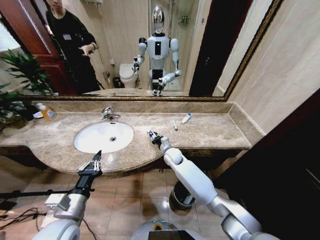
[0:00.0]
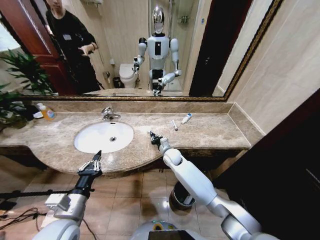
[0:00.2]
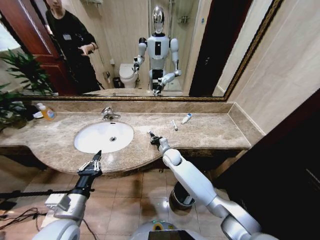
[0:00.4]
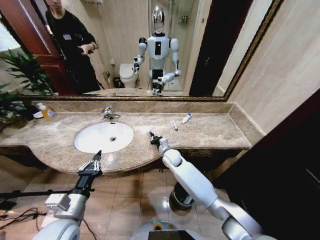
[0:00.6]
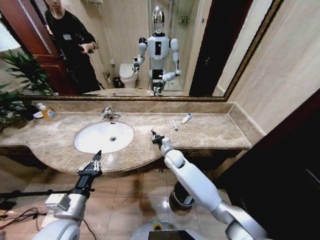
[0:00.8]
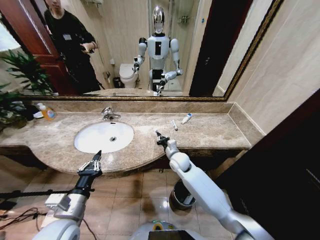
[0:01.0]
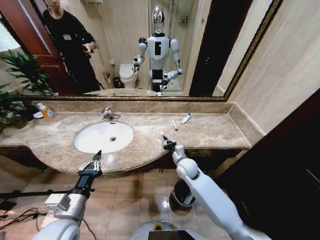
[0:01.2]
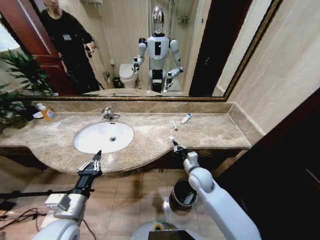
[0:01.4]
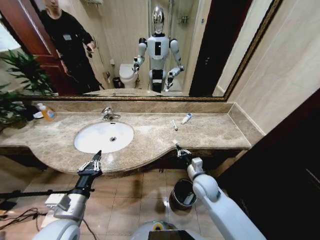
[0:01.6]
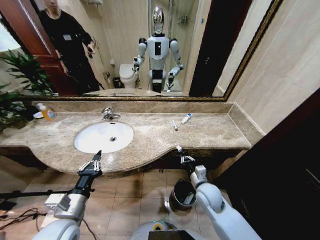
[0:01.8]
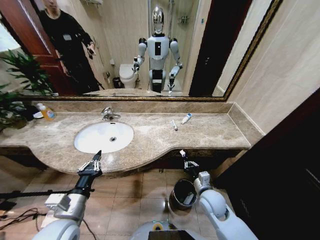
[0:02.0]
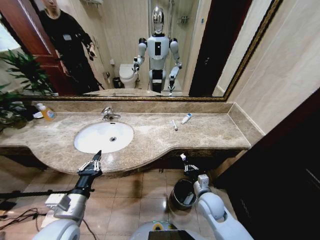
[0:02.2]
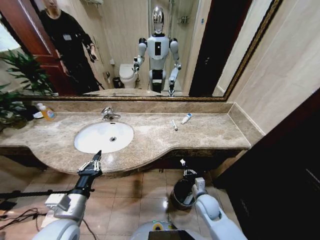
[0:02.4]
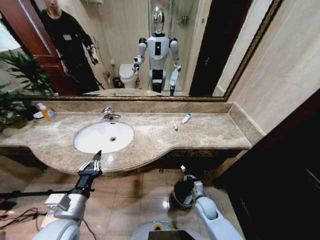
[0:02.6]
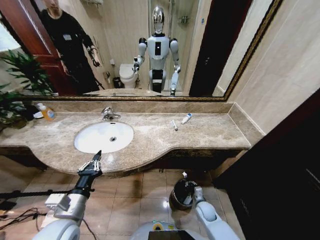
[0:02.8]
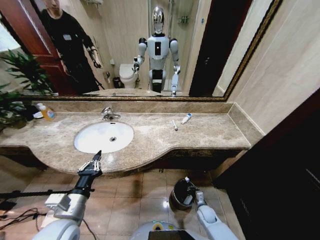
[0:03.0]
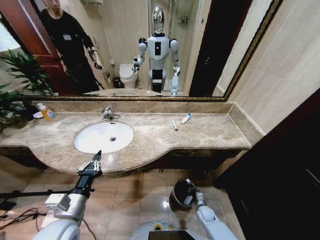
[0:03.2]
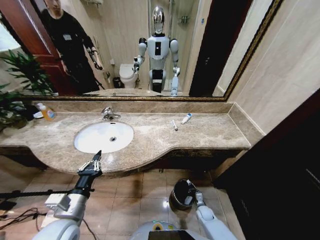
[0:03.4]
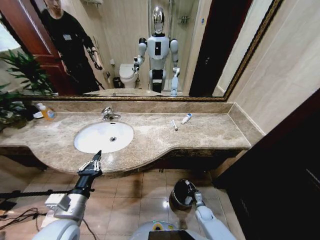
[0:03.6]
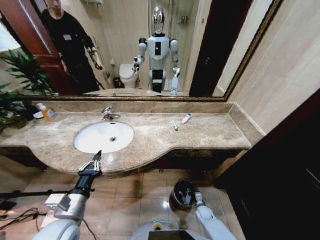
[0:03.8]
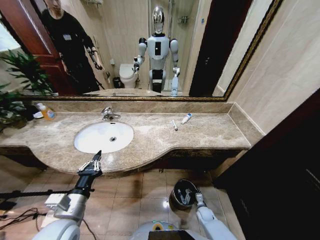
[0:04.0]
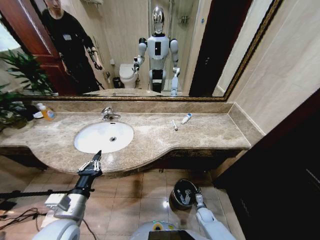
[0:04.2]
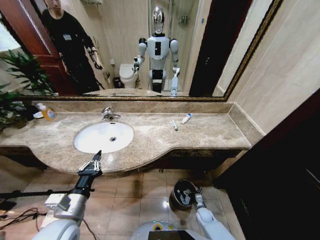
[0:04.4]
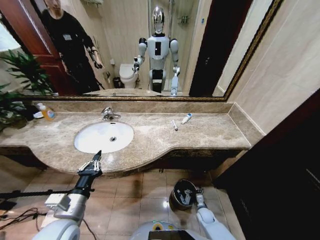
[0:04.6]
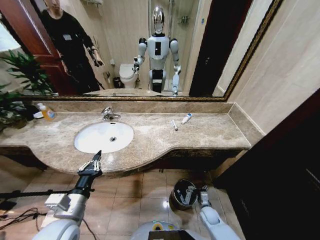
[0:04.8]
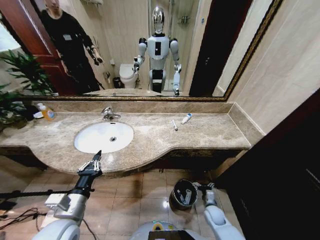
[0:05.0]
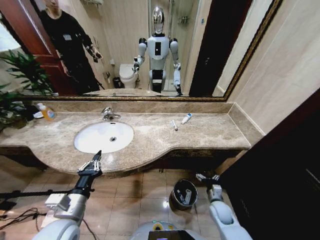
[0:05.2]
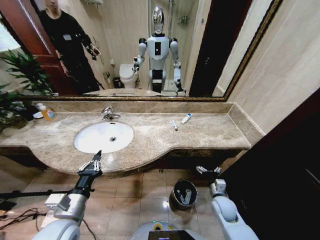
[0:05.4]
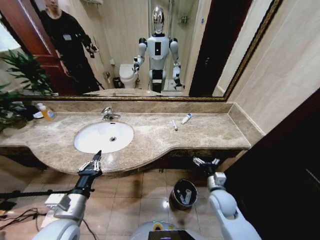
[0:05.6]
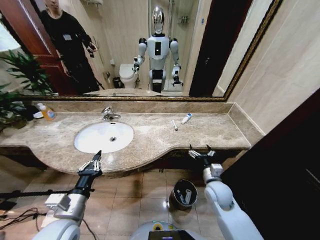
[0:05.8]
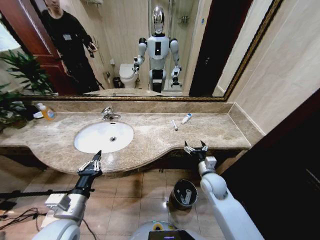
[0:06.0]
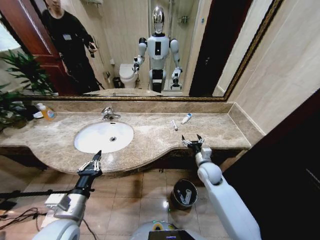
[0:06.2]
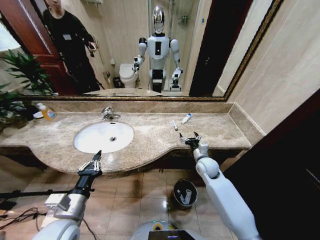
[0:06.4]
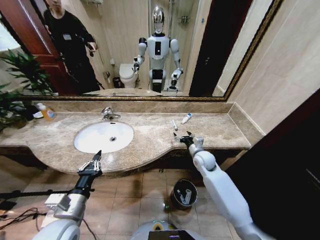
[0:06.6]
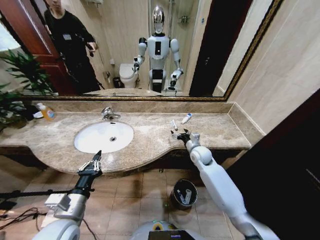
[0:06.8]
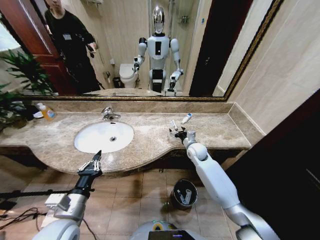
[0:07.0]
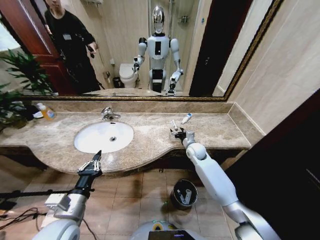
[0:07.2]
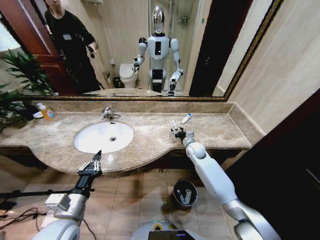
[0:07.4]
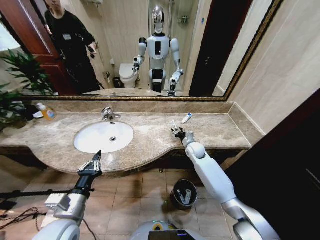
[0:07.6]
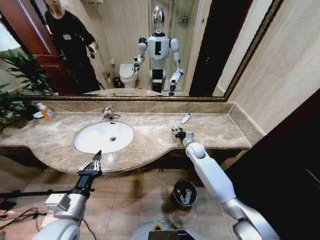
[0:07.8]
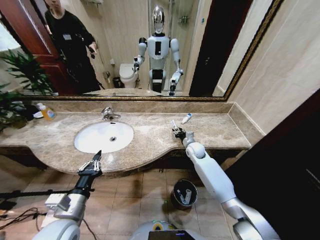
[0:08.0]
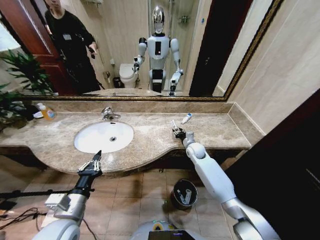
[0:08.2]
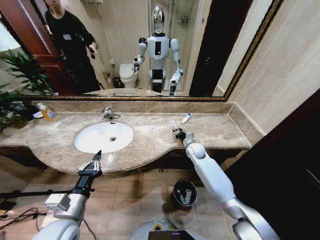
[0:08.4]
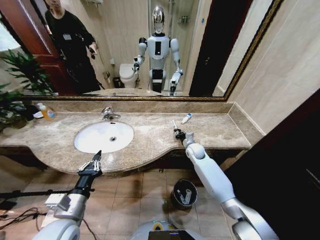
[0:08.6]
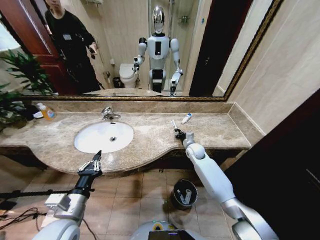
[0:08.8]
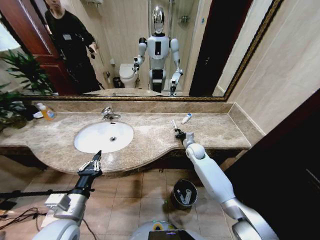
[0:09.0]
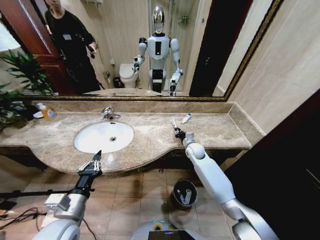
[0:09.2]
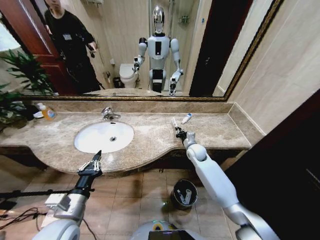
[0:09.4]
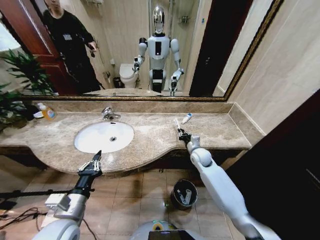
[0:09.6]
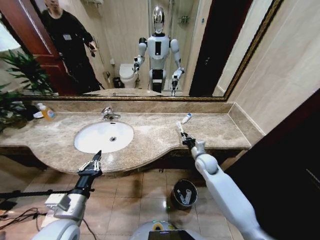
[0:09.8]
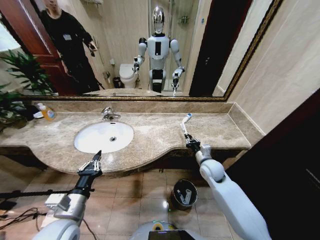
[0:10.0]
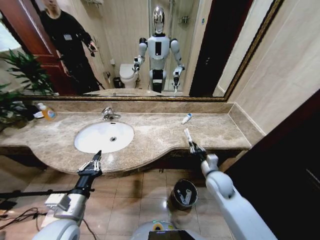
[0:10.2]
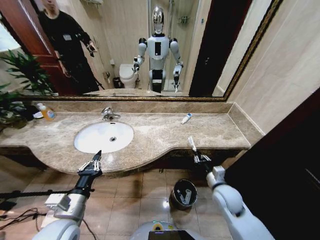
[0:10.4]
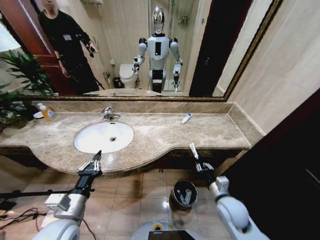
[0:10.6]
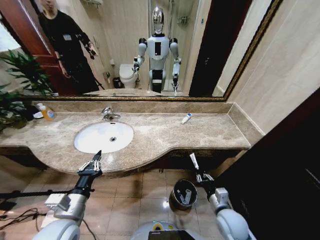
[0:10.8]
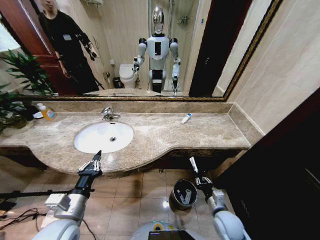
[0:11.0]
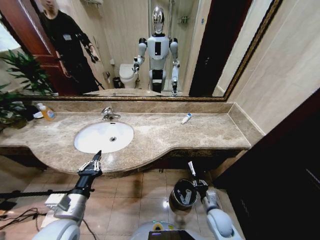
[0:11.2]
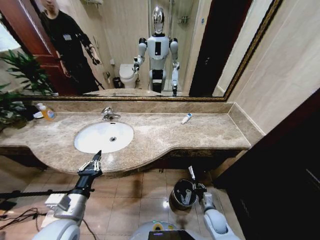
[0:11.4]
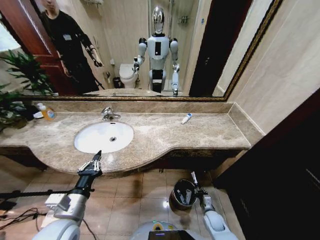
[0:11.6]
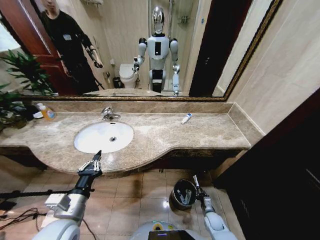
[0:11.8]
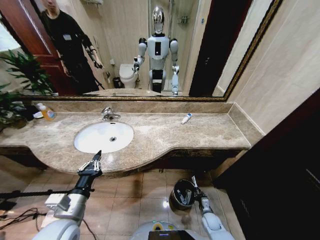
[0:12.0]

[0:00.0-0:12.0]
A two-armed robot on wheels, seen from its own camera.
Task of the whole recording: Pick up the trash from the sink and place it in the trash bin.
0:00.0 to 0:01.6: The right gripper heads backward and to the right, covering roughly 20 cm, and closes its fingers.
0:01.6 to 0:03.0: The right gripper heads downward, covering roughly 25 cm.
0:03.0 to 0:04.4: The right gripper travels downward by approximately 5 cm, and opens up.
0:04.4 to 0:06.0: The right gripper goes about 30 cm upward.
0:06.0 to 0:07.6: The right gripper is displaced forward by about 20 cm.
0:07.6 to 0:09.0: The right gripper closes up.
0:09.0 to 0:10.4: The right gripper moves backward, approximately 25 cm.
0:10.4 to 0:12.0: The right gripper shifts approximately 30 cm downward.

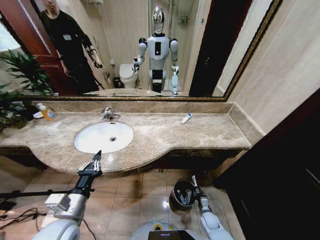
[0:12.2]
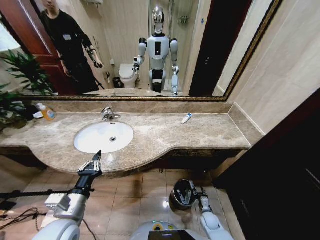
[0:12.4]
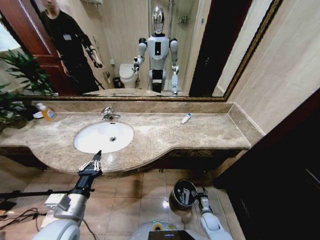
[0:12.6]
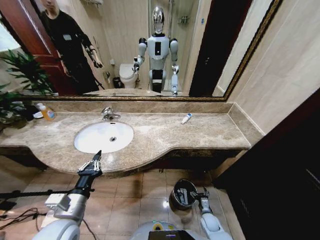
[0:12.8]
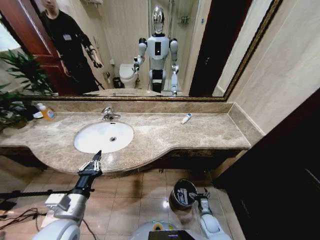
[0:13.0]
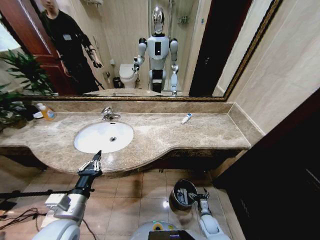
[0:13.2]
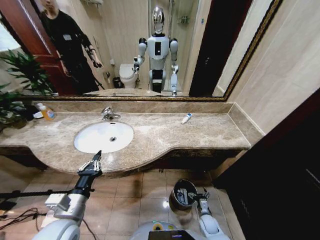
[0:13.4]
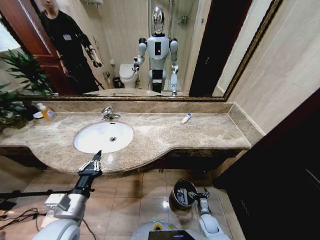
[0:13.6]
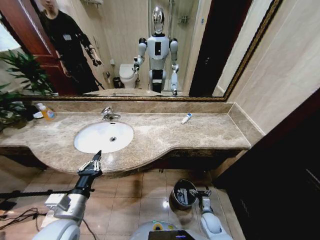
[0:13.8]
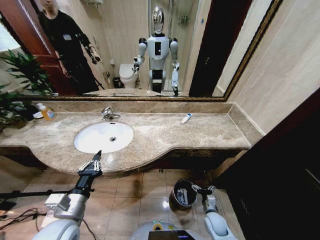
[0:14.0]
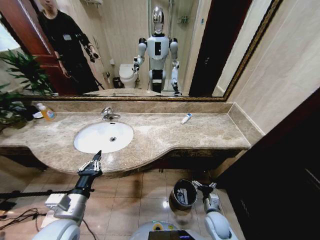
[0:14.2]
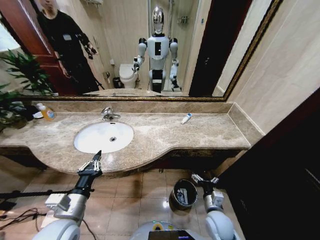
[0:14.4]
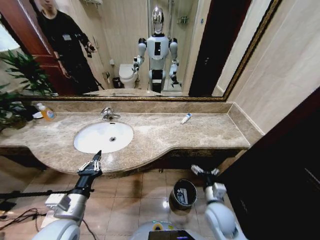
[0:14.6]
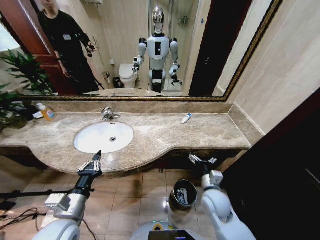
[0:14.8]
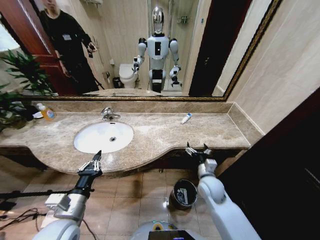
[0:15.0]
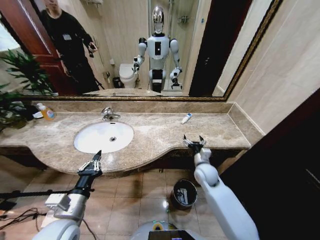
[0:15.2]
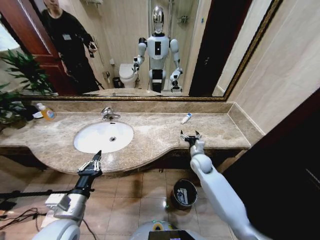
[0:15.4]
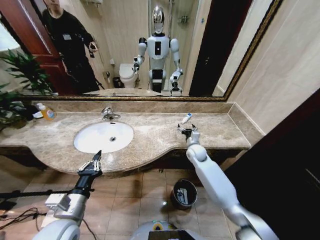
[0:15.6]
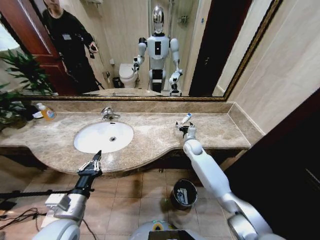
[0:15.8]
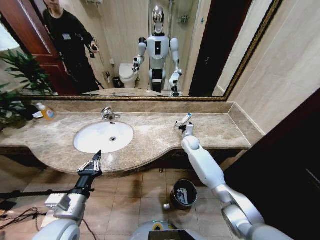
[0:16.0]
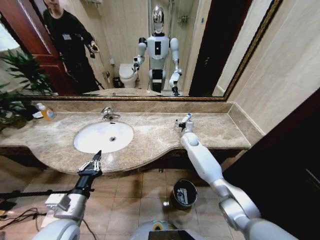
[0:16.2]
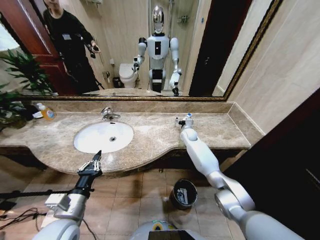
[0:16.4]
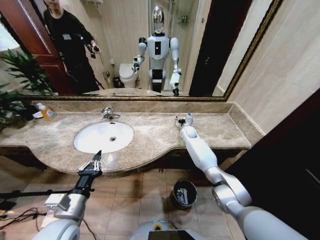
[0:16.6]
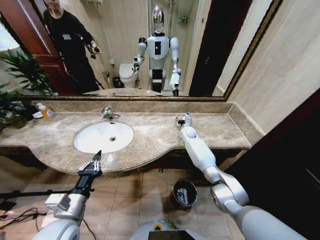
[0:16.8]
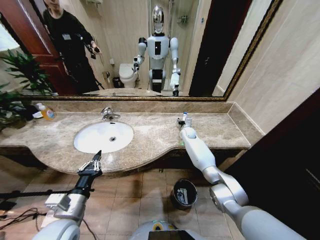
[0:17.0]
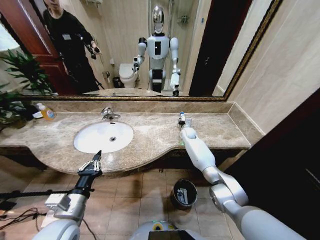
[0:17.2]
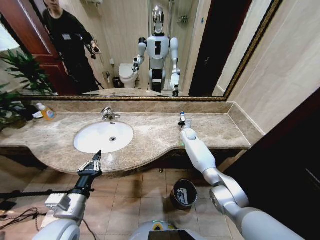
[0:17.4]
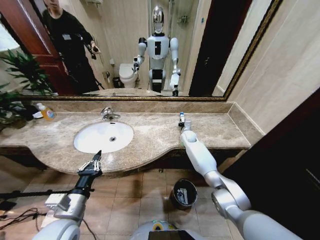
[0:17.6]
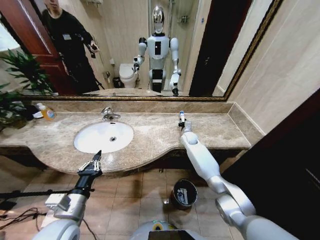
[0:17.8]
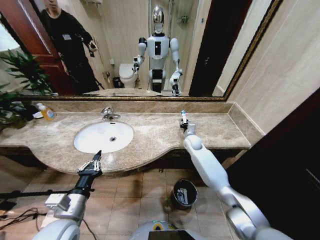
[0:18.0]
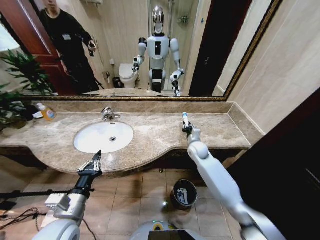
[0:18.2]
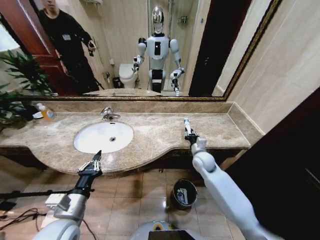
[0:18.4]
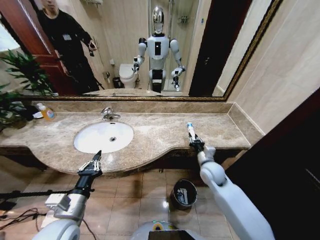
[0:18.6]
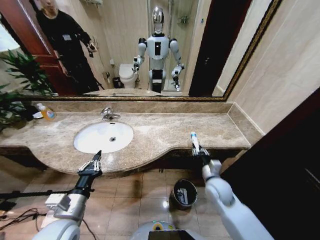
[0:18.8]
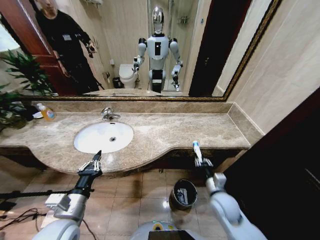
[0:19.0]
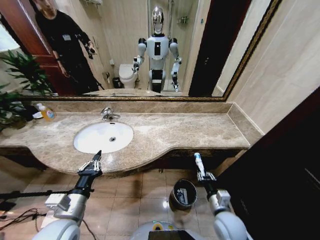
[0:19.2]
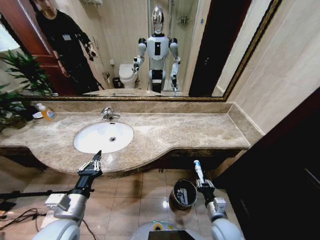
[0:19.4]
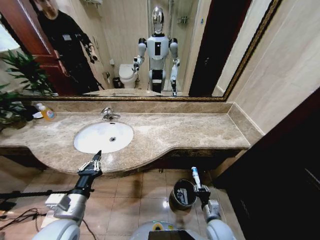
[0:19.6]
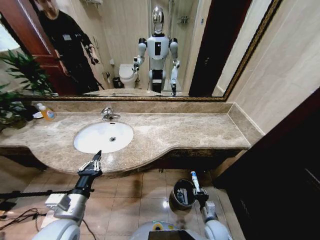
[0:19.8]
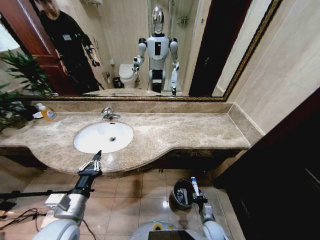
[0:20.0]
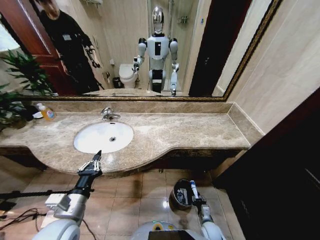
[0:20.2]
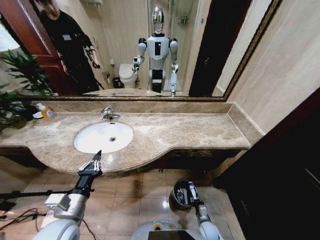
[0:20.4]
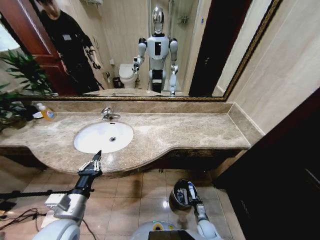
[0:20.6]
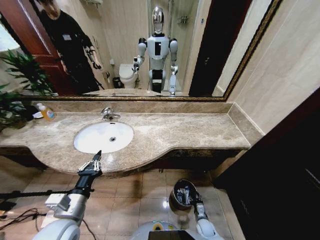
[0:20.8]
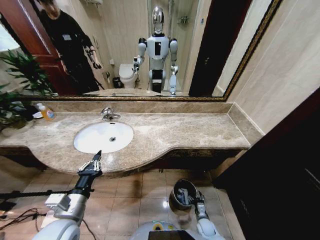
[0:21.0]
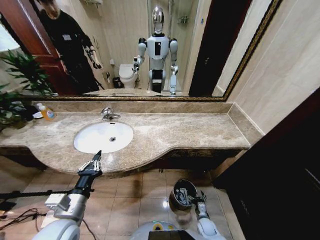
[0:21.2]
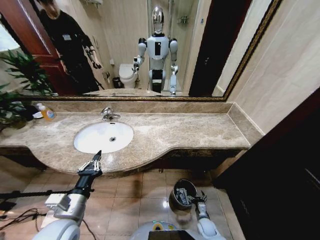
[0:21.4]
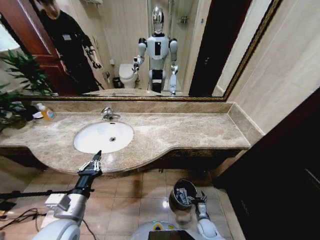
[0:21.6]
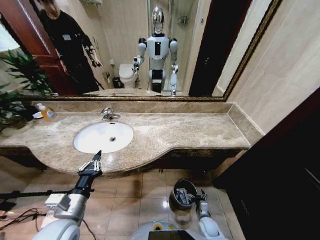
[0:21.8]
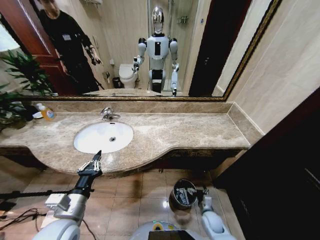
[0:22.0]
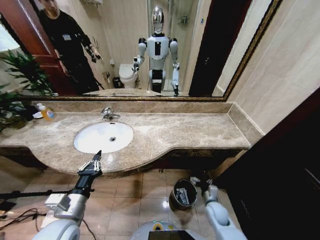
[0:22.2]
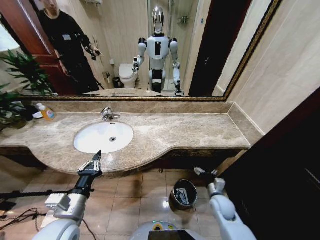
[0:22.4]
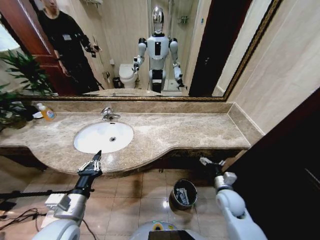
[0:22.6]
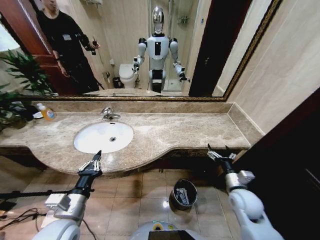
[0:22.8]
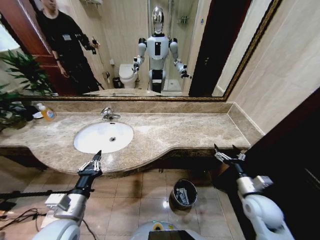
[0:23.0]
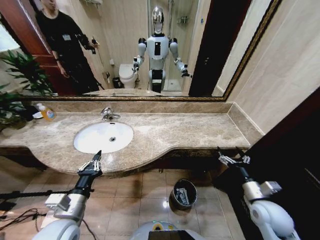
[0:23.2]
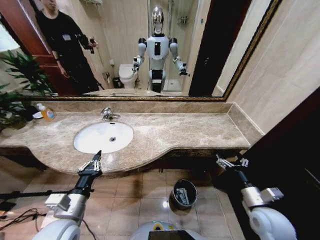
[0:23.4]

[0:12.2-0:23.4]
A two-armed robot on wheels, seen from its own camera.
Task of the whole recording: Pick up the trash from the sink and place it in the trash bin.
0:12.2 to 0:13.8: The right gripper opens.
0:13.8 to 0:15.4: The right gripper travels upward and forward by roughly 35 cm.
0:15.4 to 0:17.0: The right gripper travels forward by approximately 20 cm.
0:17.0 to 0:18.6: The right gripper shifts some 25 cm backward, and closes up.
0:18.6 to 0:20.2: The right gripper goes about 35 cm downward and backward.
0:20.2 to 0:21.8: The right gripper opens its fingers.
0:21.8 to 0:23.4: The right gripper goes roughly 30 cm upward.
